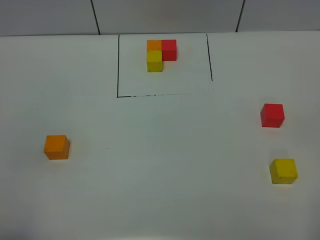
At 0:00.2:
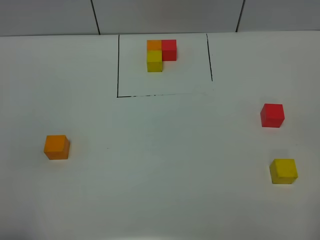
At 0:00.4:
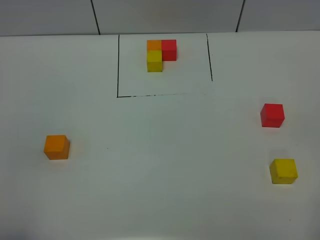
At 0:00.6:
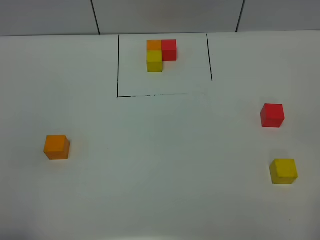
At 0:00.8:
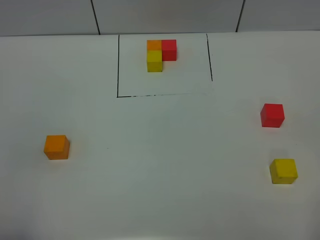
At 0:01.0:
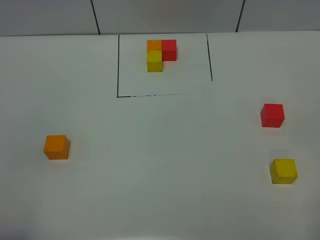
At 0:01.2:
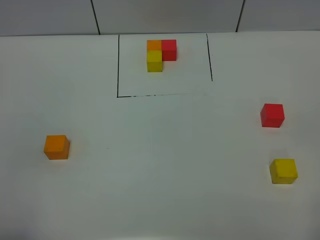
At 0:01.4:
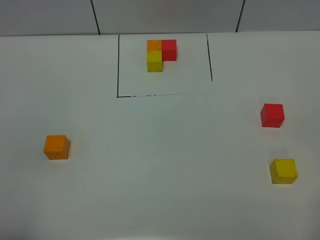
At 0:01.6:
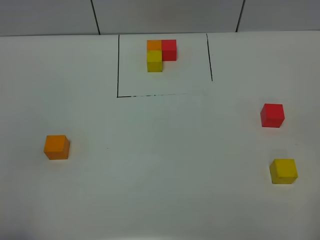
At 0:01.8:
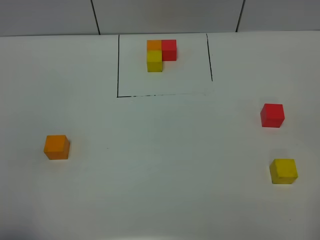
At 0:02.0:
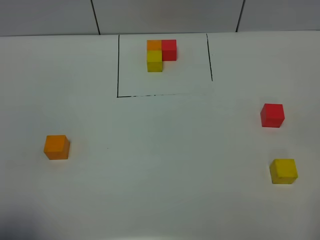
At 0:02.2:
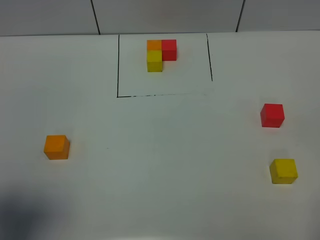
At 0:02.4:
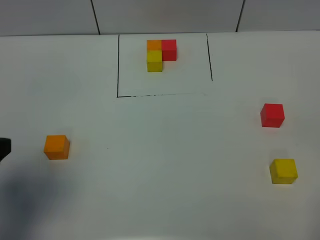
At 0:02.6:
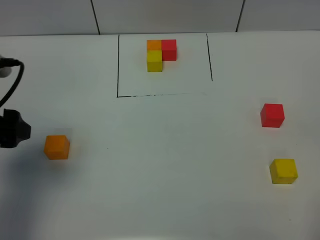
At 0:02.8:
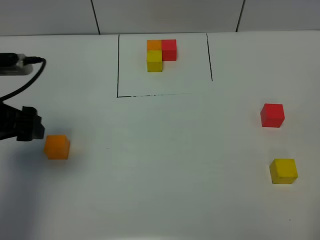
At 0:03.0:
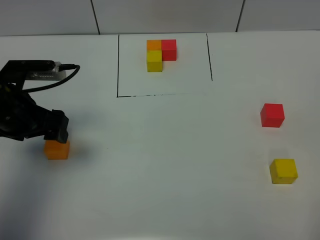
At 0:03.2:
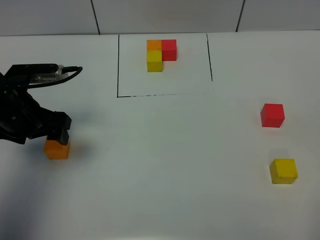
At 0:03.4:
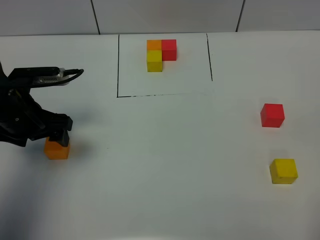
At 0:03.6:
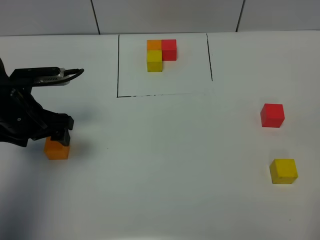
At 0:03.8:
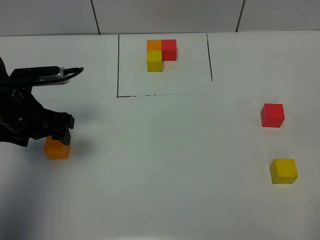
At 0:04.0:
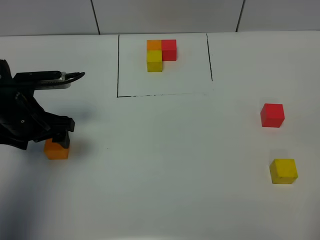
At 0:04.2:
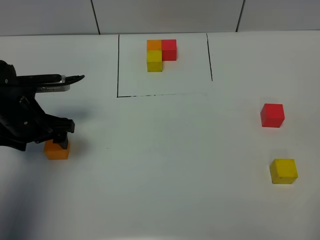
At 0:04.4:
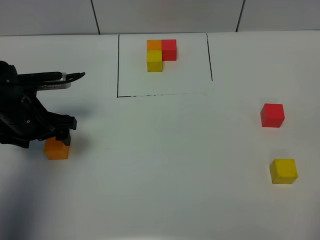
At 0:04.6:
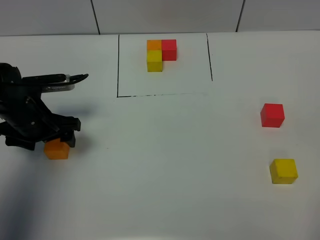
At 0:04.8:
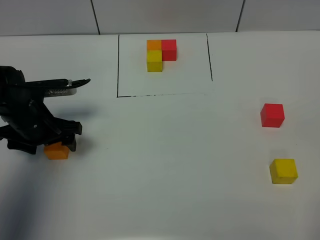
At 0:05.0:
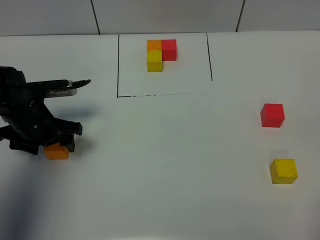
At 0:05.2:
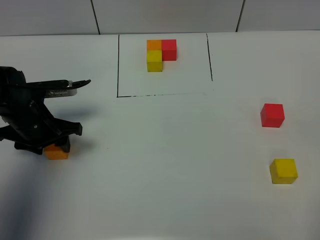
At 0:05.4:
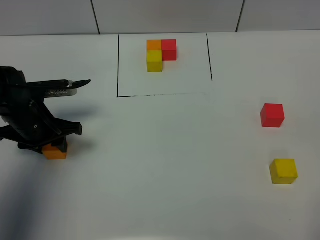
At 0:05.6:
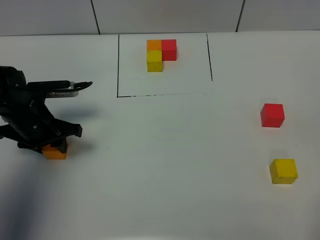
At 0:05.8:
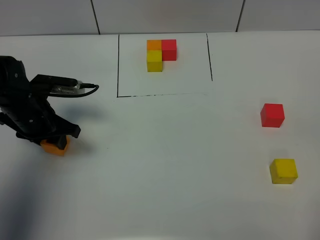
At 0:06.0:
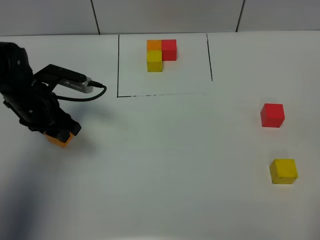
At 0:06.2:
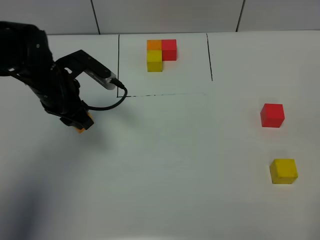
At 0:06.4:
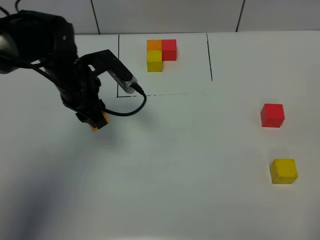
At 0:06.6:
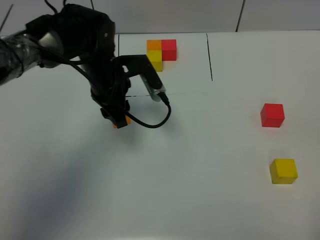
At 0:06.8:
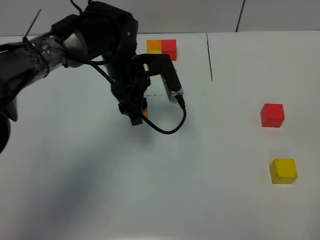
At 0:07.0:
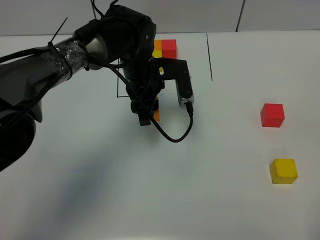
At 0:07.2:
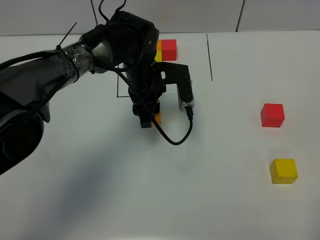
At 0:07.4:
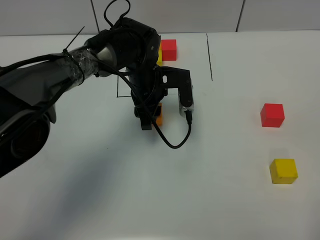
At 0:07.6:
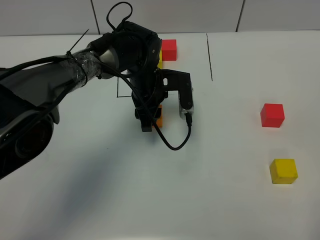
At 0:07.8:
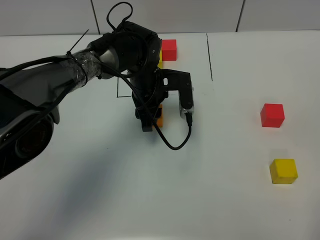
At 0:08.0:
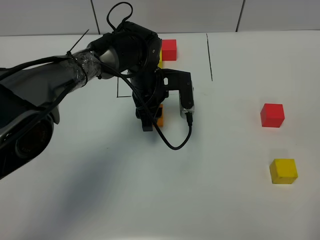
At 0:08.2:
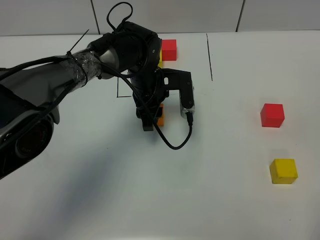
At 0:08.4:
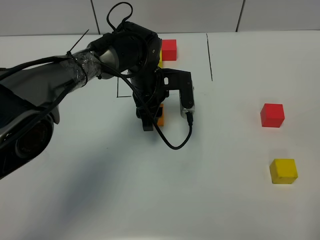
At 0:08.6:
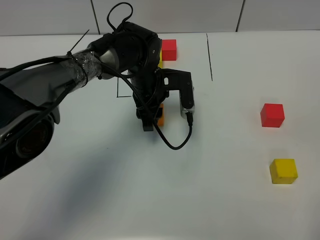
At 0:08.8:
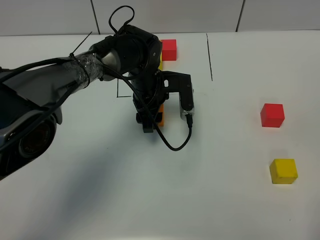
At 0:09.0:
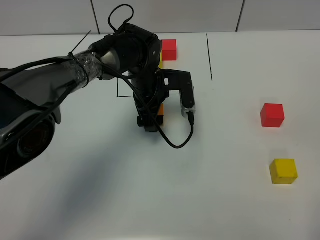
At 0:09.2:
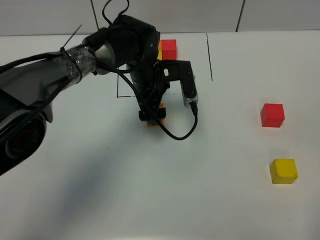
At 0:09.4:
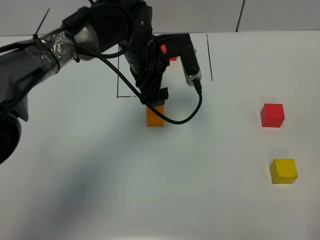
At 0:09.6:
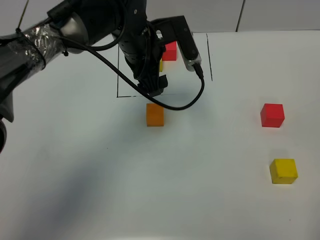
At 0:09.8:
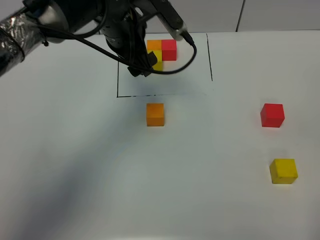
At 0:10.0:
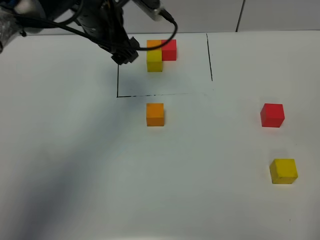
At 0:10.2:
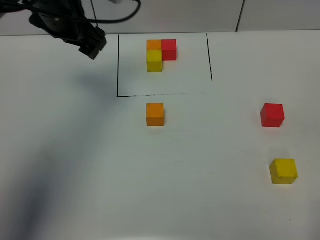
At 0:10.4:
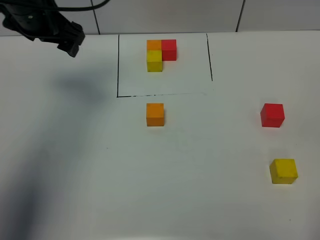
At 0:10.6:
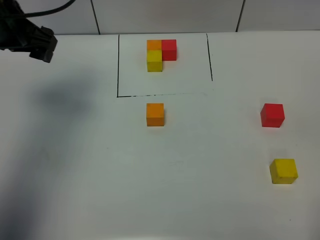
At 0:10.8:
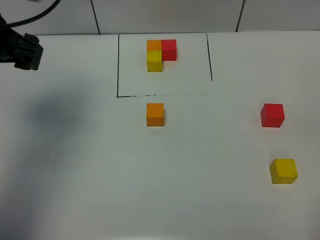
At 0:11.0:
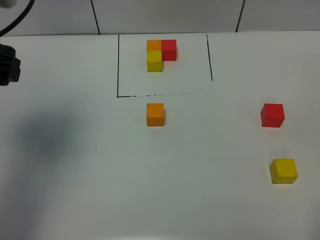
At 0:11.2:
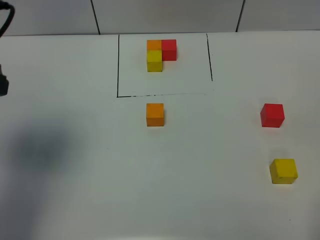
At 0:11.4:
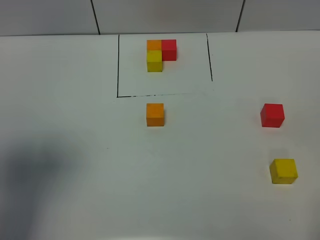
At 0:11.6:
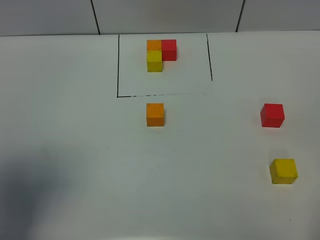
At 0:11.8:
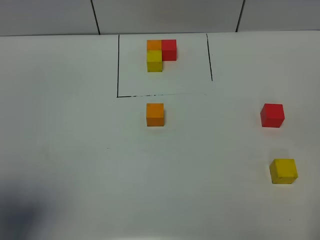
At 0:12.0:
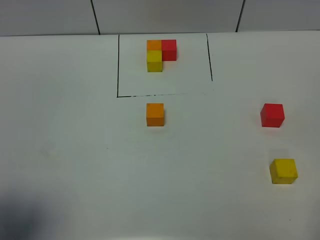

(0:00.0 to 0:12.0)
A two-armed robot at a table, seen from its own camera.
Task of the whole recording: According to the building block template in front, assemble the scattered blocks together.
Step, 0:00.0 - 0:08.6: Put the orange build block in the center of the table.
0:00.0 - 0:01.6: Neither gripper changes place.
0:01.6 - 0:03.0: The left gripper moves forward, roughly 30 cm, and opens up.
0:03.0 - 0:04.4: The left gripper moves downward, roughly 5 cm.
0:04.4 - 0:06.0: The left gripper closes up.
0:06.0 - 0:07.6: The left gripper travels to the right by approximately 20 cm.
0:07.6 - 0:09.0: The left gripper opens its fingers.
0:09.0 - 0:10.4: The left gripper is displaced to the left and upward by approximately 25 cm.
0:10.4 - 0:12.0: The left gripper is displaced backward by about 35 cm.

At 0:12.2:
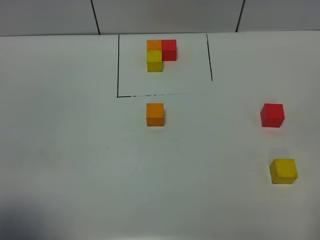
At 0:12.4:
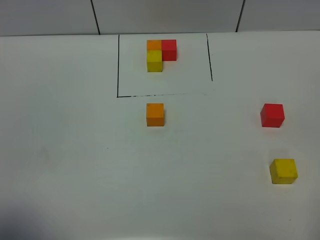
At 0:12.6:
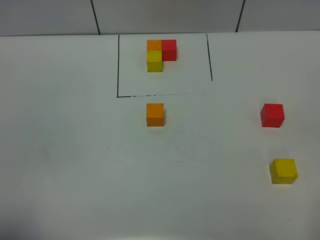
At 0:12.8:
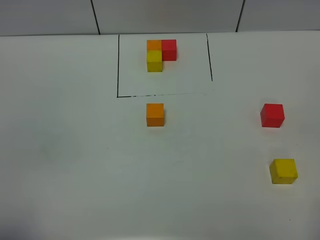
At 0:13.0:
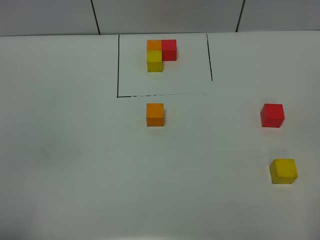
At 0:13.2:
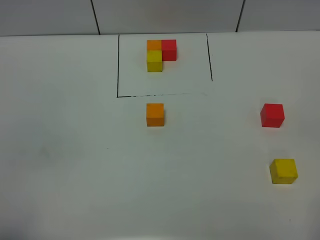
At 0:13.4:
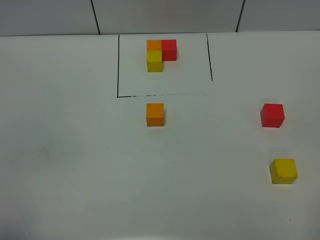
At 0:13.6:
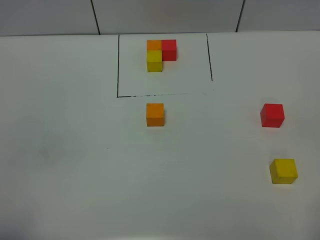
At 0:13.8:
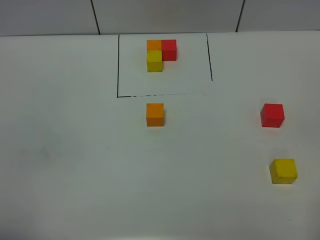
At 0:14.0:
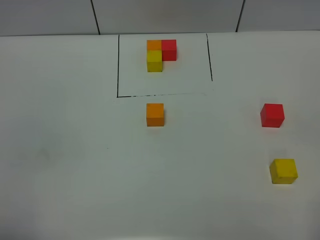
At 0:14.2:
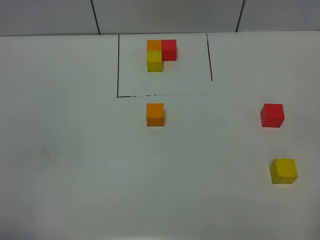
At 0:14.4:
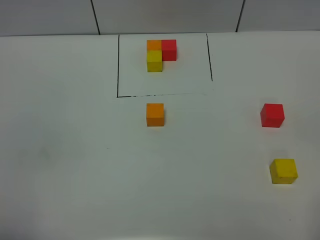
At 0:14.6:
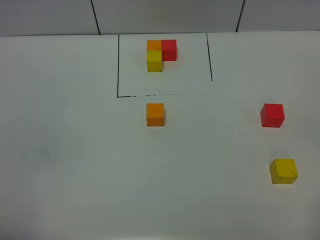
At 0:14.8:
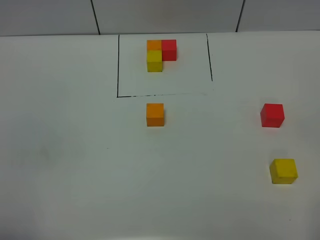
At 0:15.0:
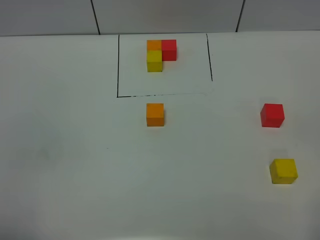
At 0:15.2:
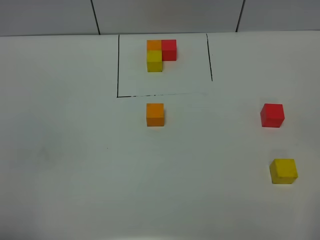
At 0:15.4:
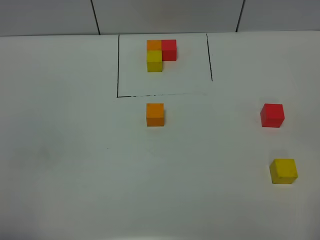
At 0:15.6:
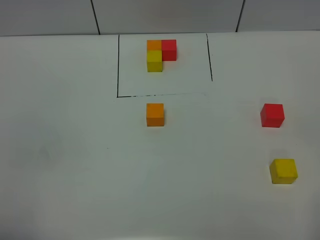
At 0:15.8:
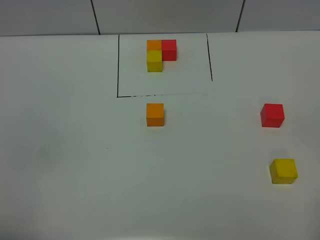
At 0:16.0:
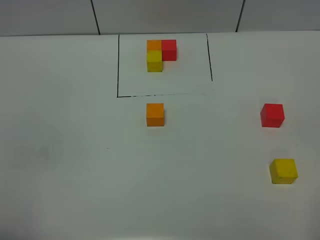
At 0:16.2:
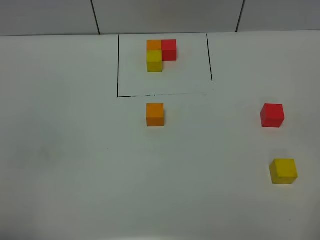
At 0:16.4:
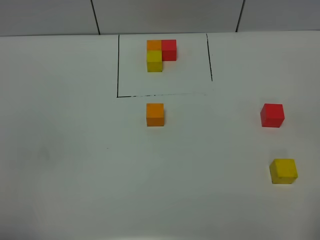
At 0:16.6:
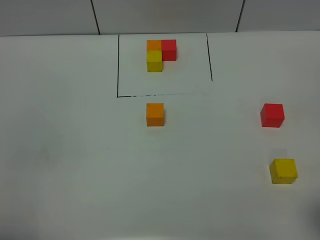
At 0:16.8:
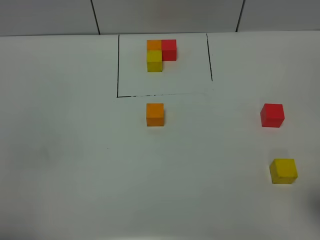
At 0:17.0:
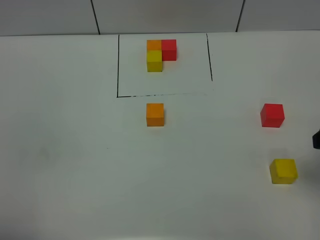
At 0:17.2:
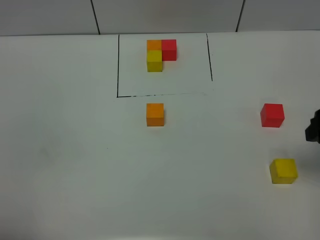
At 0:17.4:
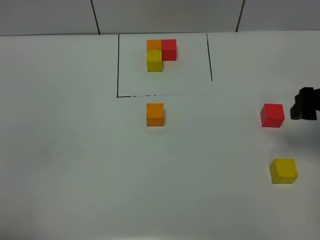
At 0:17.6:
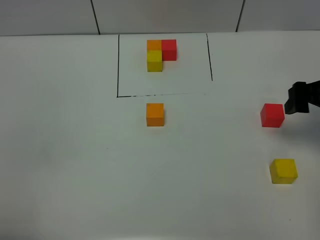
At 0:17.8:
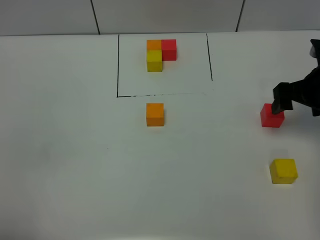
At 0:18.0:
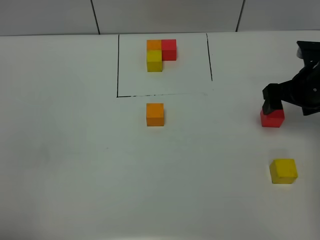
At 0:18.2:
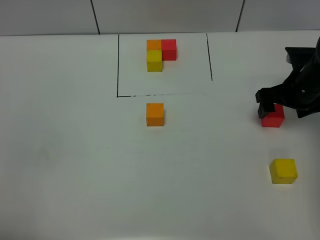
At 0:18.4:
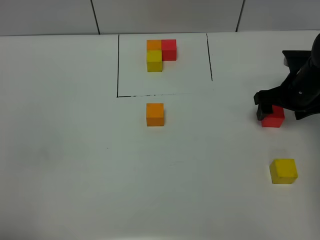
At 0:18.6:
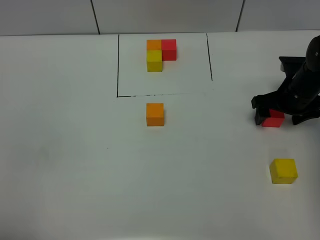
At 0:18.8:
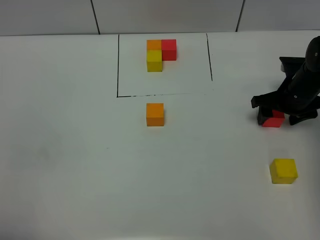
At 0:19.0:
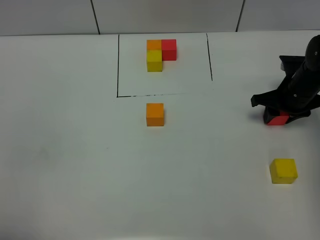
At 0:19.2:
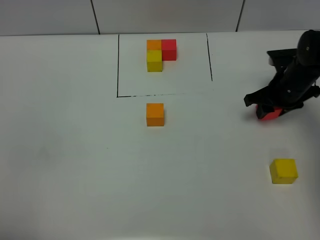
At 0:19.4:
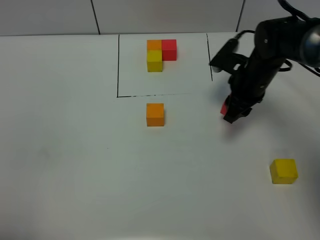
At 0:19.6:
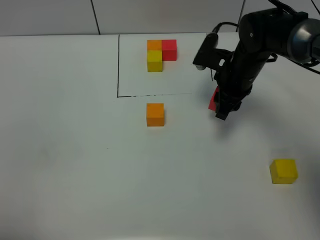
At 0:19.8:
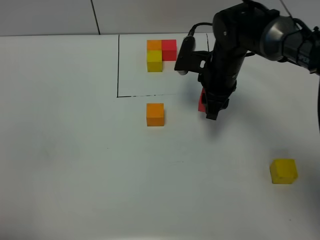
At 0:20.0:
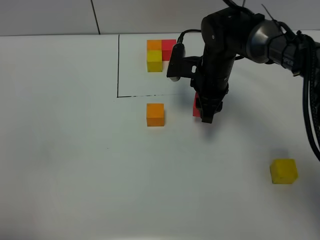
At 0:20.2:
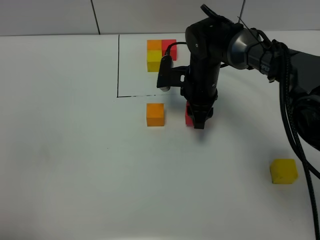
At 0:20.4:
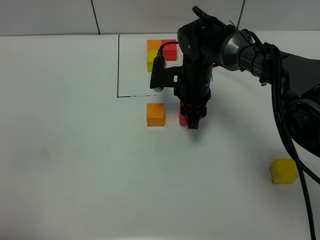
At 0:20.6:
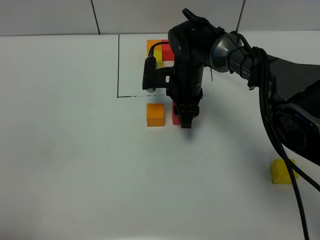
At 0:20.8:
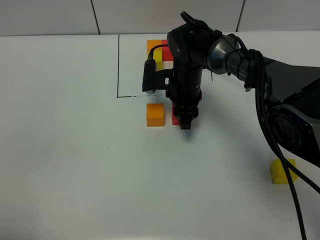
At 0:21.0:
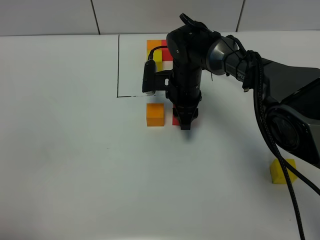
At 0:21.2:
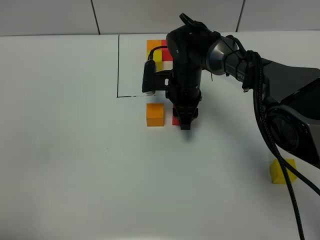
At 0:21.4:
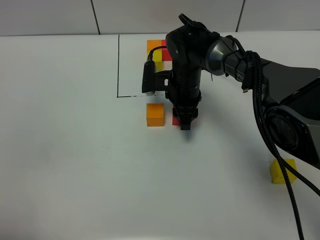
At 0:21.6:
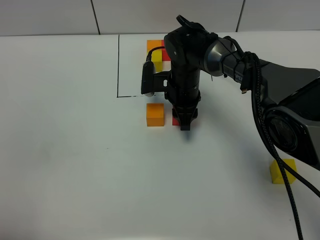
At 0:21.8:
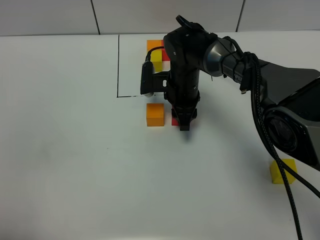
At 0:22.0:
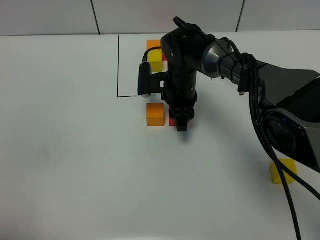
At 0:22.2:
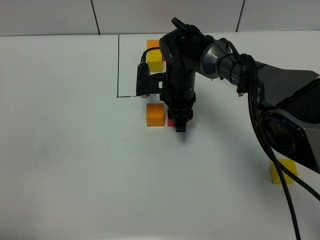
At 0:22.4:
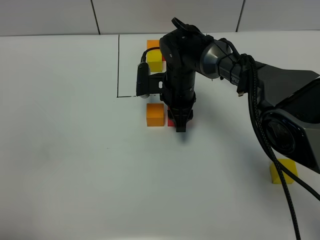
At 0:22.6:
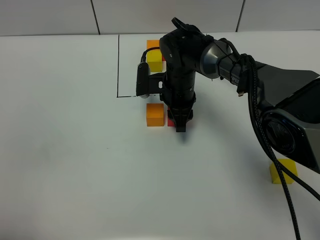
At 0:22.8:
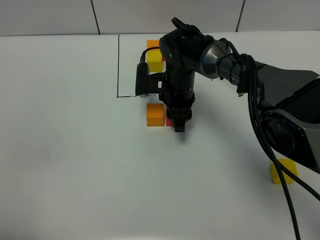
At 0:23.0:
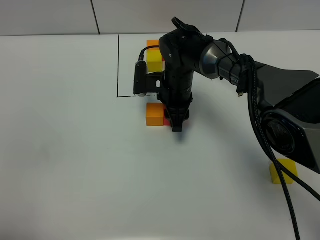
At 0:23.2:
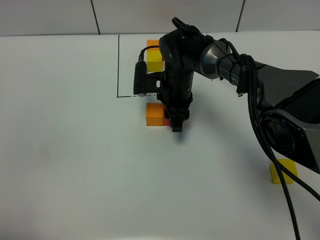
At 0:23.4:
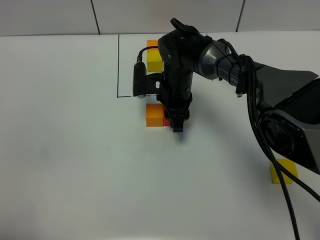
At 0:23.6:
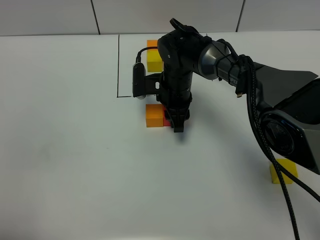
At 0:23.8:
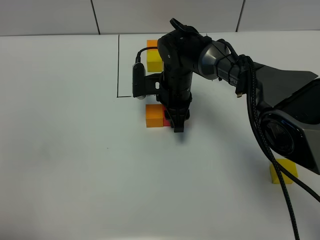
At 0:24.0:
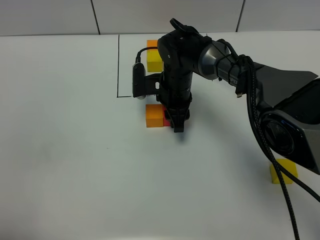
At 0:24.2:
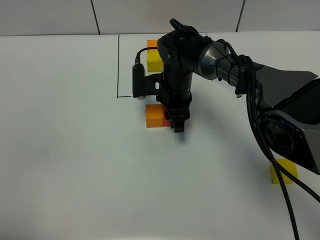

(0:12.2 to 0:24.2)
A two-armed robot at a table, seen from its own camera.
Task of the whole recording: According to the building block template in front, assemble the scattered blocks together.
0:12.2 - 0:13.8: The left gripper shifts by approximately 5 cm.
0:13.8 - 0:15.2: Both grippers stay about where they are.
0:16.6 - 0:18.2: The right gripper is displaced forward and downward by roughly 35 cm.
0:18.2 - 0:19.8: The right gripper shifts some 15 cm to the left, and closes its fingers.
0:19.8 - 0:21.2: The right gripper is displaced to the left and downward by approximately 10 cm.
0:21.2 - 0:22.6: The two grippers keep their place.
0:22.6 - 0:24.2: Both grippers stay about where they are.
